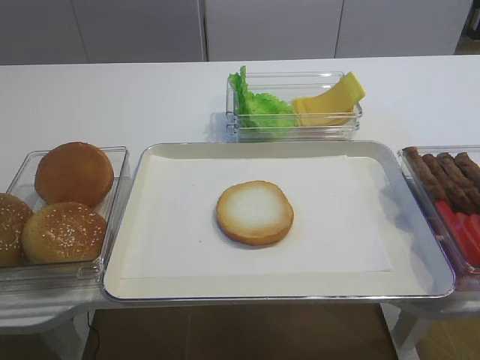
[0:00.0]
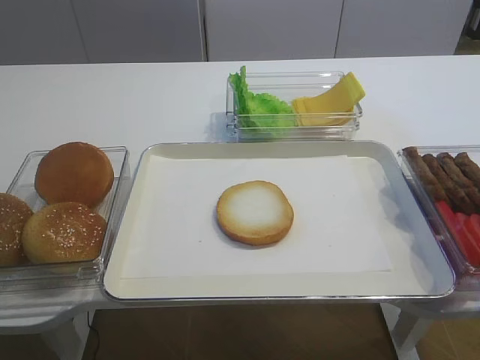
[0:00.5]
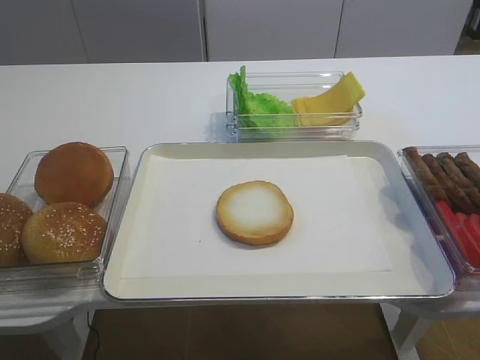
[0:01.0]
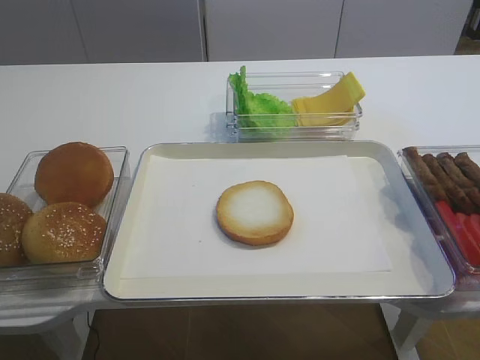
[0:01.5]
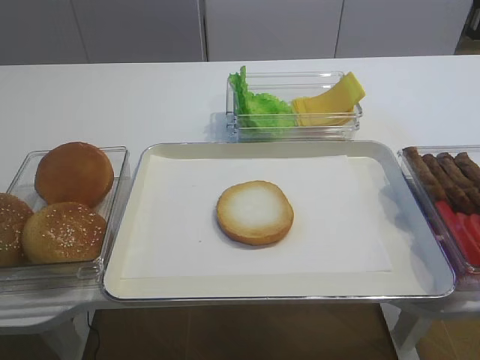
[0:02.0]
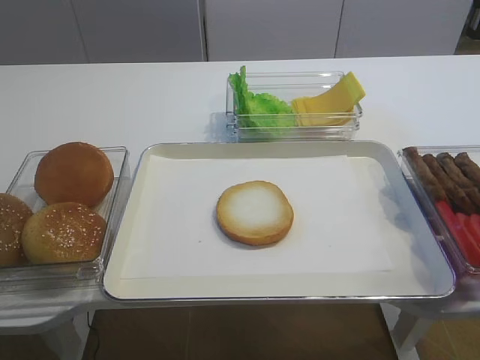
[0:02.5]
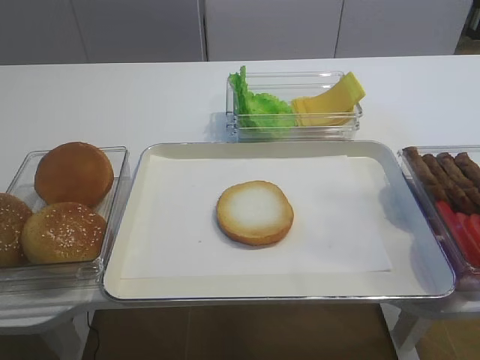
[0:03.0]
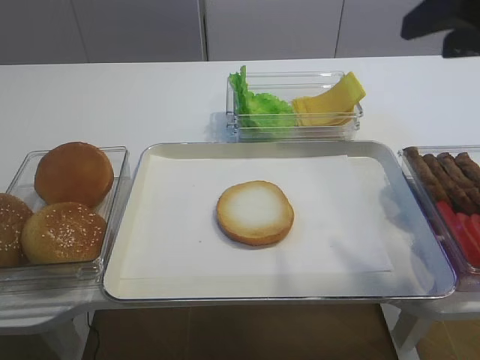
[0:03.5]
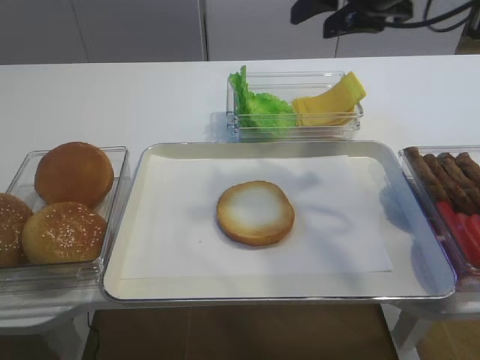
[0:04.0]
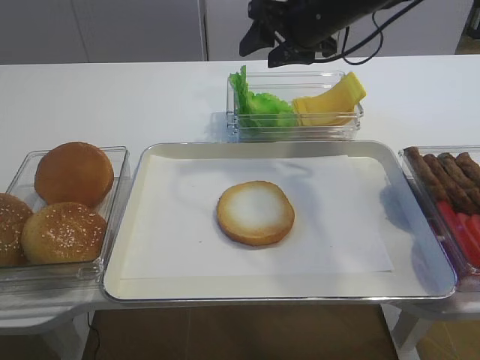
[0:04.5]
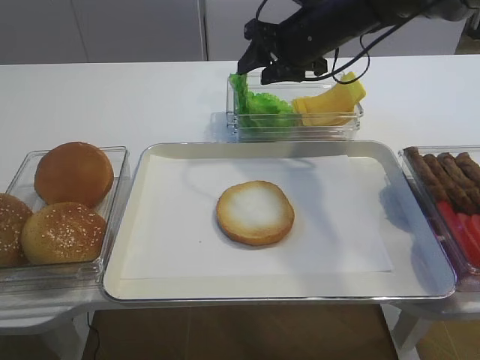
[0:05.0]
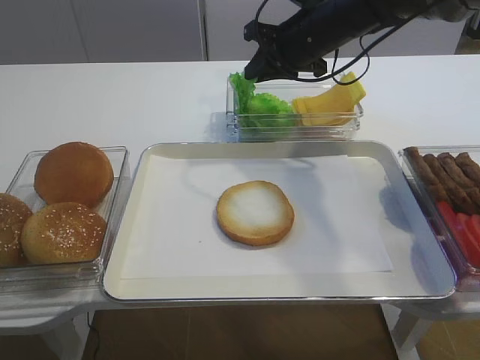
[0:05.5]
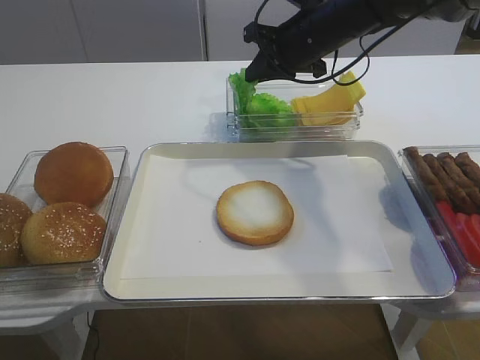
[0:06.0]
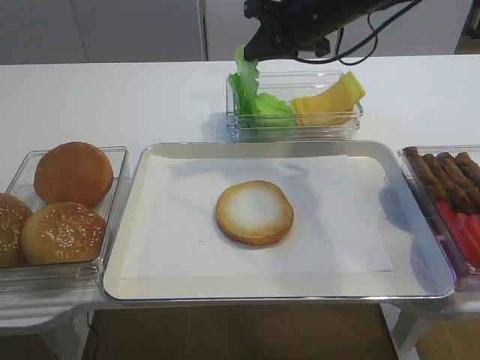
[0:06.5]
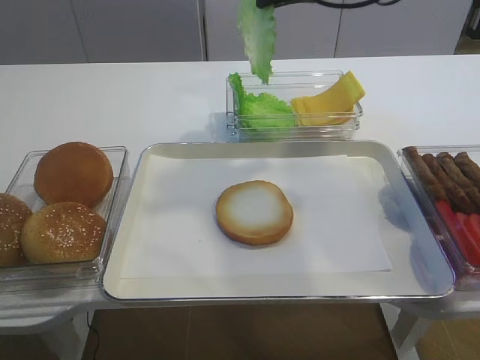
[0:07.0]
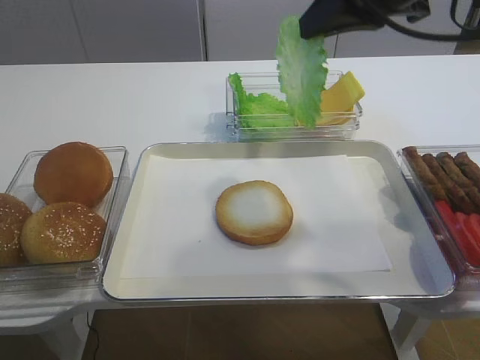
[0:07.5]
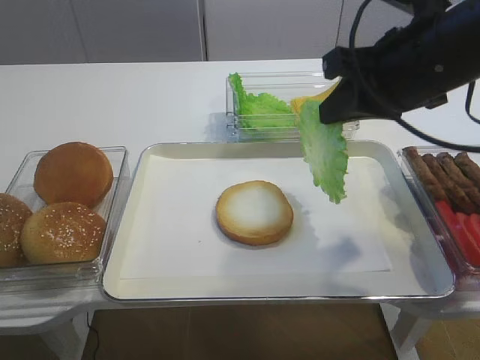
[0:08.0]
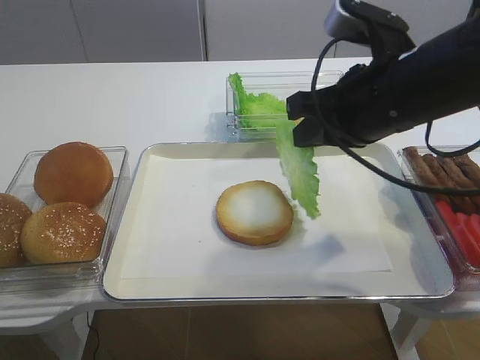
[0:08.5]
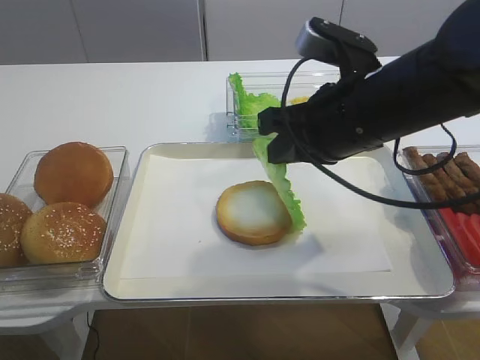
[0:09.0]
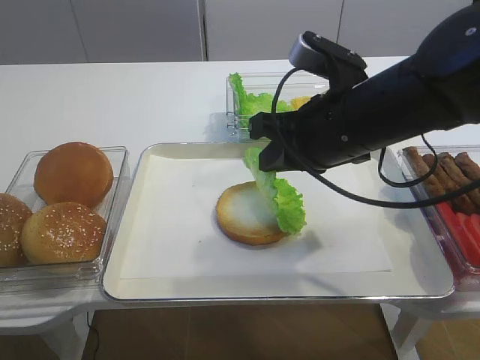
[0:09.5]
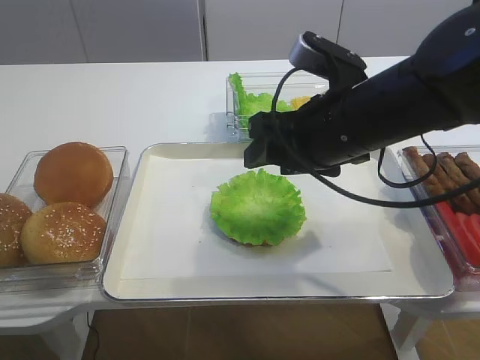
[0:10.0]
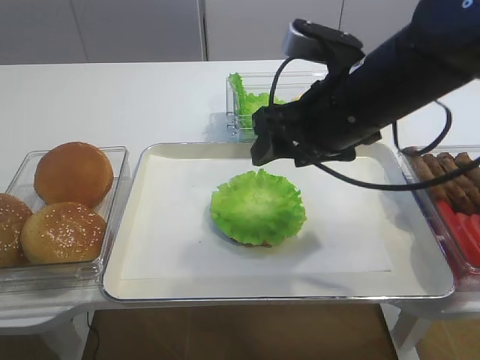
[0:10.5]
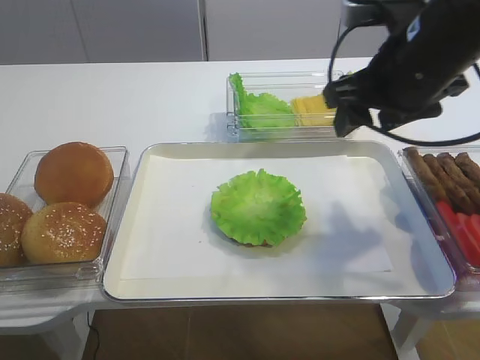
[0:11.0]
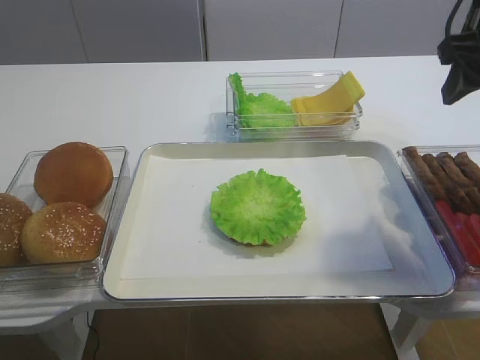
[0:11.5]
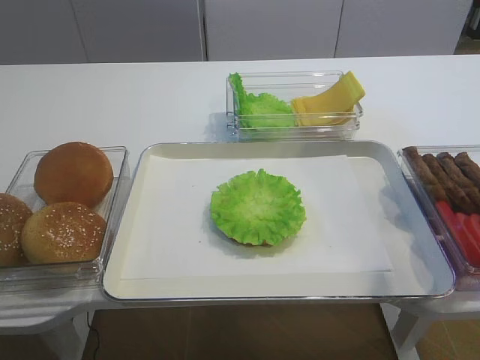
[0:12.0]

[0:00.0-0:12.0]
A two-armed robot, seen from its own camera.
Step, 0:00.0 to 0:06.5: Pick up the lettuce leaf with the right gripper.
Step, 0:07.0 to 0:10.5: Place the lettuce leaf on the bread slice with the right gripper.
0:02.0 to 0:04.0: The right gripper shifts approximately 35 cm forward.
0:04.0 to 0:06.0: The right gripper heads downward, forward and to the left, covering some 15 cm, and closes.
0:06.0 to 0:08.0: The right gripper heads backward, covering approximately 20 cm.
0:08.0 to 0:10.0: The right gripper shifts some 10 cm downward and to the left, and opens.
0:10.0 to 0:12.0: The right gripper is displaced to the right and upward by roughly 20 cm.
